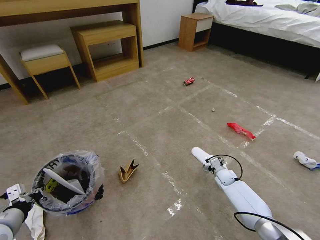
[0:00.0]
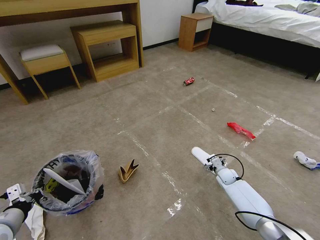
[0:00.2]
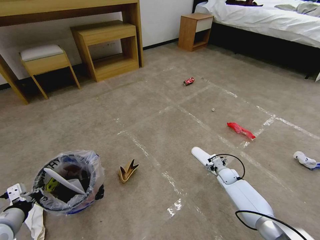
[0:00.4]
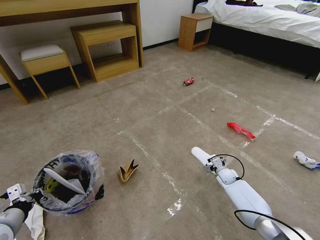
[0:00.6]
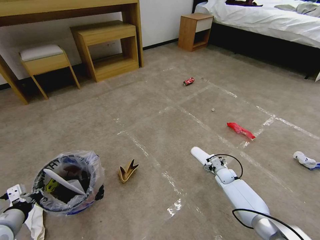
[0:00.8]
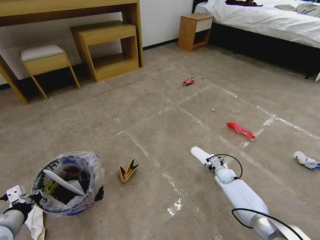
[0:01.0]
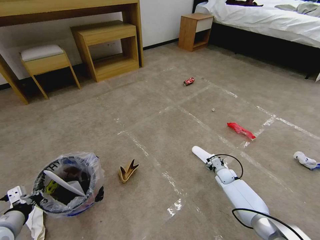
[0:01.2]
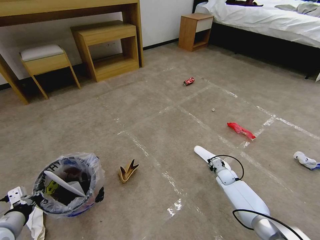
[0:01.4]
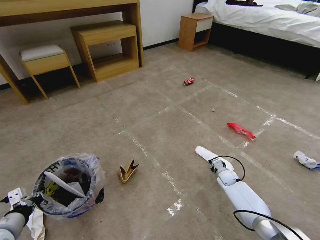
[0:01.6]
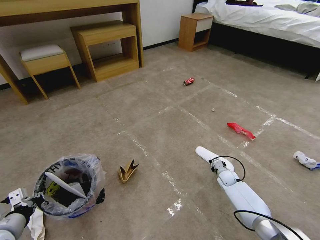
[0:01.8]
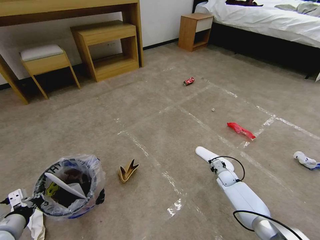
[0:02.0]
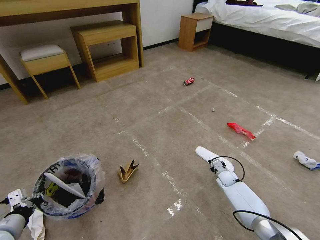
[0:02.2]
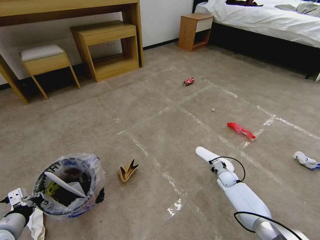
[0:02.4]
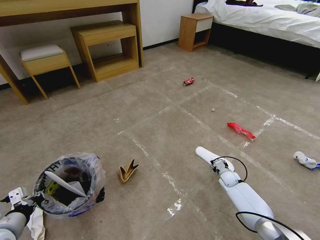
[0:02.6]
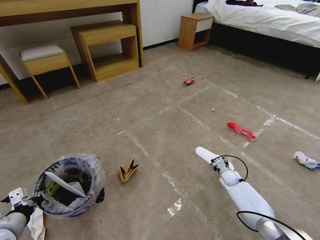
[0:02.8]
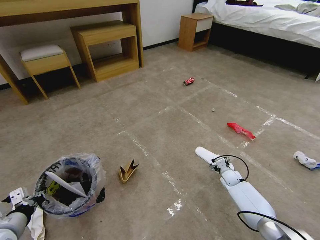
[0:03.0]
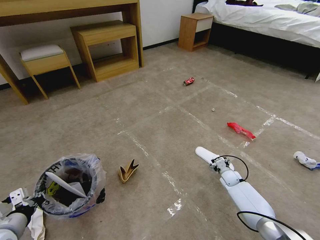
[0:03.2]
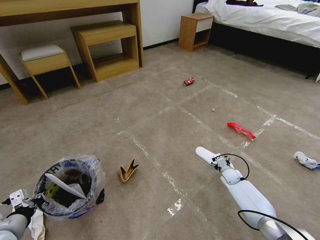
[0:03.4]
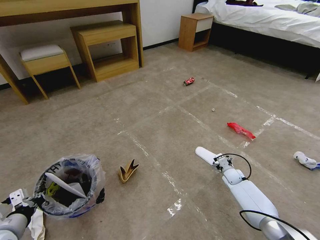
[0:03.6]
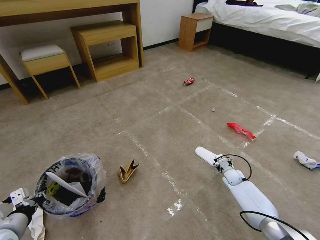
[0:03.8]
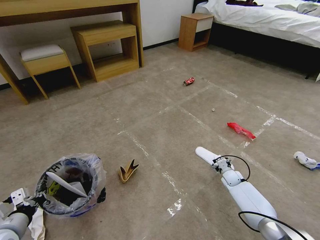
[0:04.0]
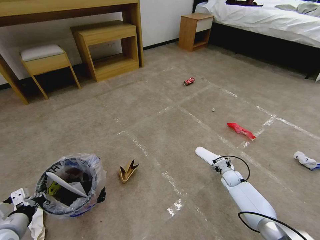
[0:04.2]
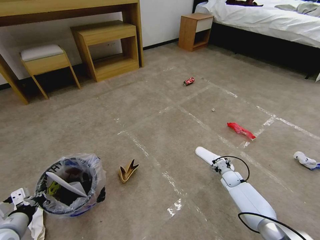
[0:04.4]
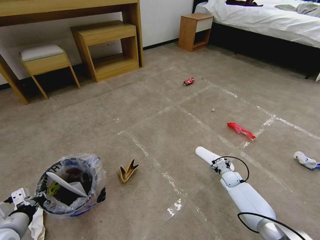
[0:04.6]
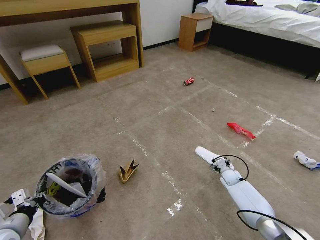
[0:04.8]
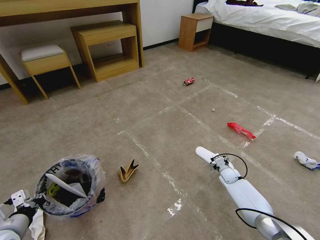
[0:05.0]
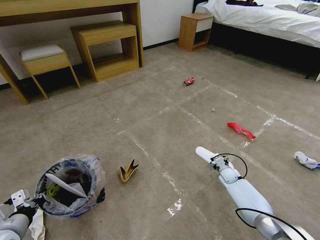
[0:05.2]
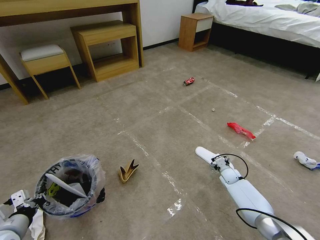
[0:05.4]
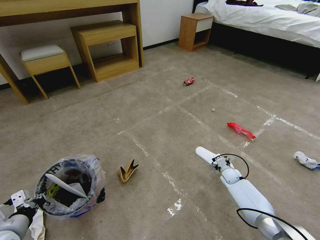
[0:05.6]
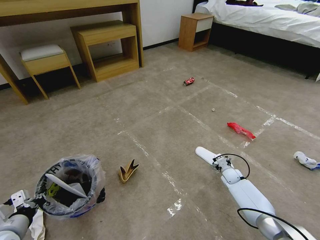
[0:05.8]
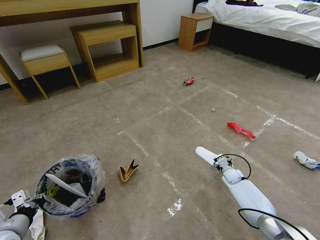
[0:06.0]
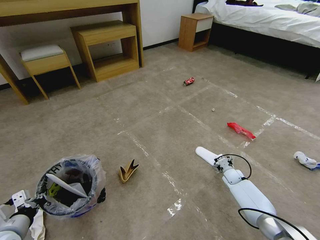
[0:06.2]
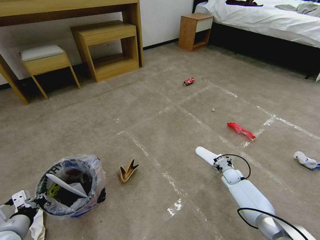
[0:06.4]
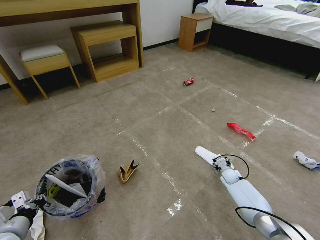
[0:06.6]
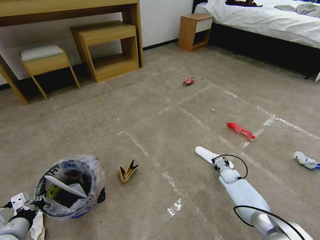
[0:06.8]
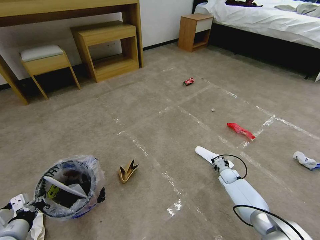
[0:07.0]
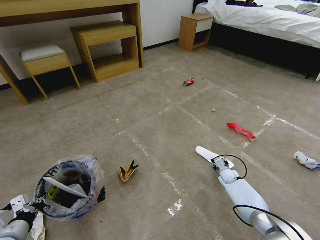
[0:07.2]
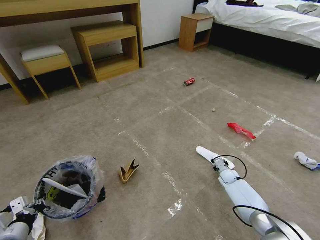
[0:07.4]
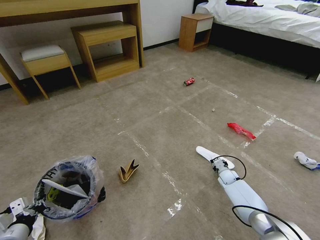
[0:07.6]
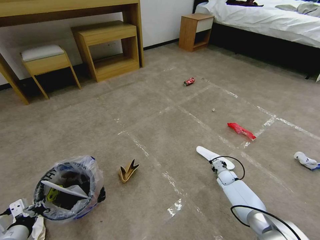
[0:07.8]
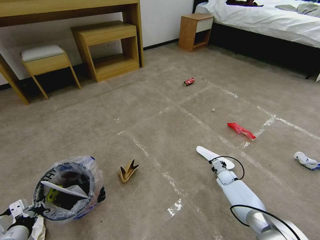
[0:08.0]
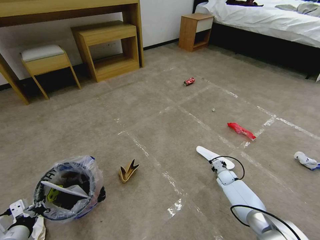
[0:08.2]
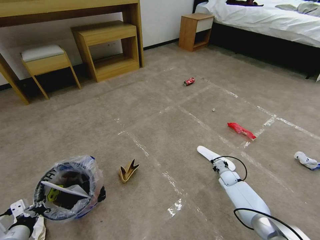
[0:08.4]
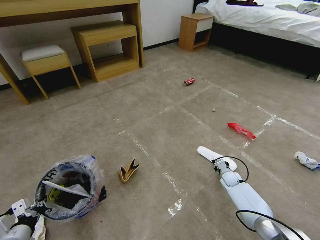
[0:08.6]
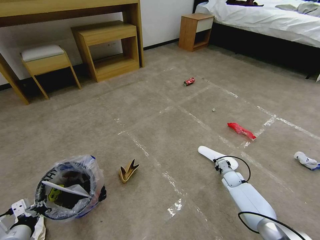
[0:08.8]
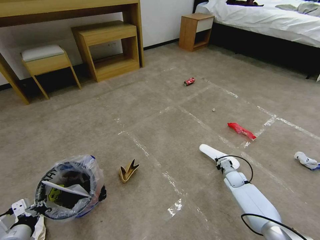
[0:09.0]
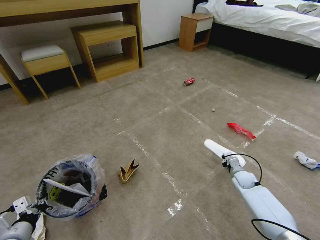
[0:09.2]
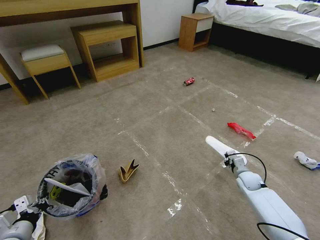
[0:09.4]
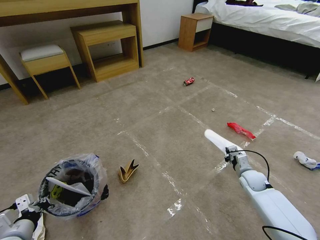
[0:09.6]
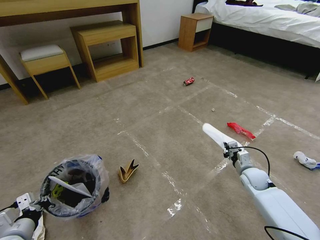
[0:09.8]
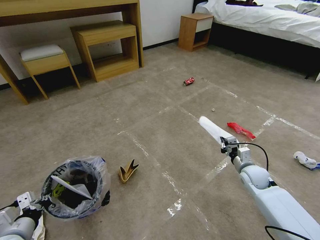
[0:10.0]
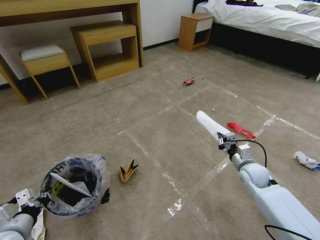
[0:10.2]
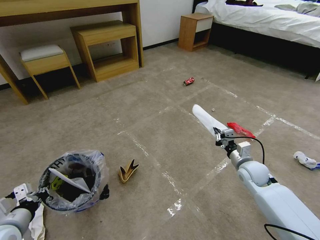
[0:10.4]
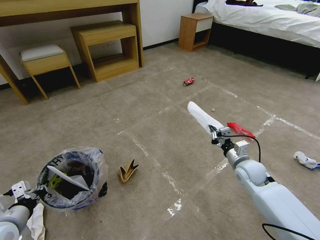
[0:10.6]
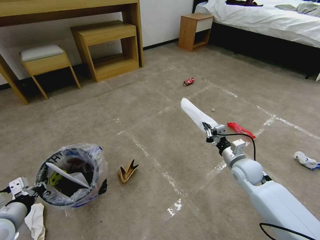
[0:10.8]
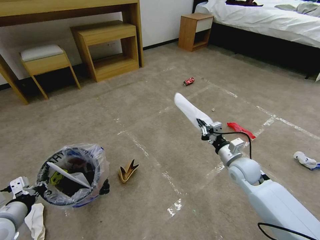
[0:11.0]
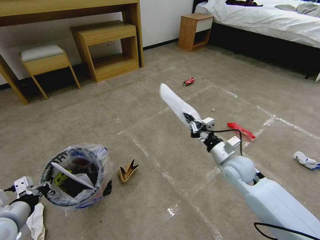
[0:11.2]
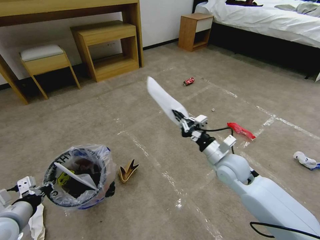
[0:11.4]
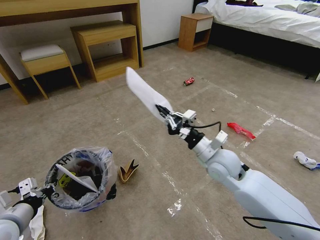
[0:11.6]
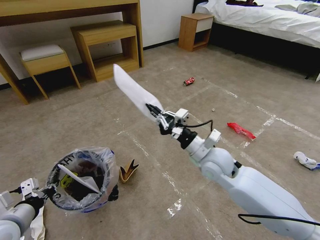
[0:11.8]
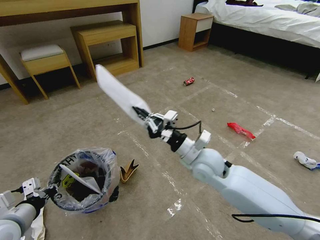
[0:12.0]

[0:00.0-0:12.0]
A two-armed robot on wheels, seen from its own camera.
Task of the whole recording: Pick up the trash bin and place the garbage on the floor into it.
0:00.0 to 0:01.6: The right gripper closes.
0:01.6 to 0:03.0: The right gripper opens.
0:03.0 to 0:04.4: Neither gripper changes place.
0:04.4 to 0:06.0: There are only small adjustments of the grippers.
0:06.0 to 0:07.6: The right gripper closes up.
0:07.6 to 0:09.0: The grippers move only a little.
0:09.0 to 0:10.4: The left gripper travels upward by approximately 5 cm. Meanwhile the right gripper shifts approximately 15 cm upward.
0:10.4 to 0:12.0: The right gripper moves to the left and upward, some 25 cm.

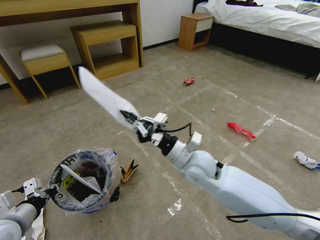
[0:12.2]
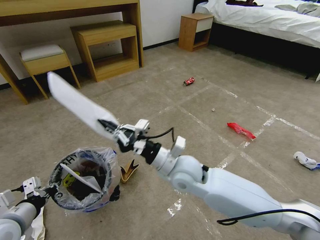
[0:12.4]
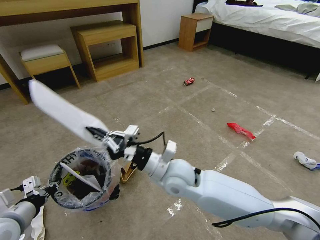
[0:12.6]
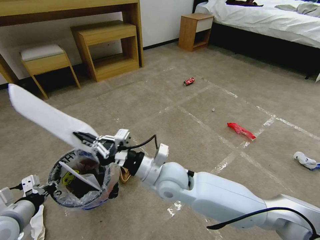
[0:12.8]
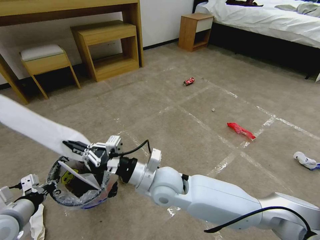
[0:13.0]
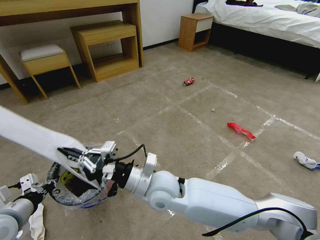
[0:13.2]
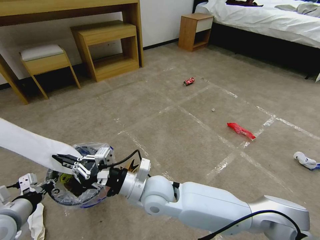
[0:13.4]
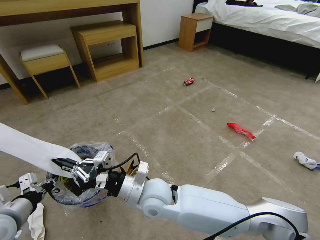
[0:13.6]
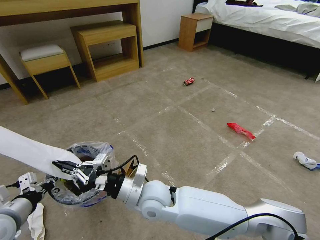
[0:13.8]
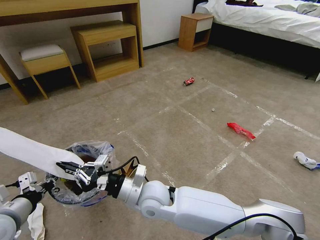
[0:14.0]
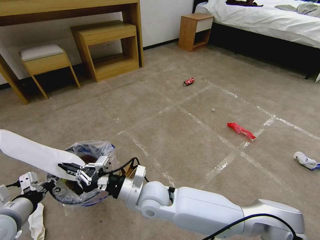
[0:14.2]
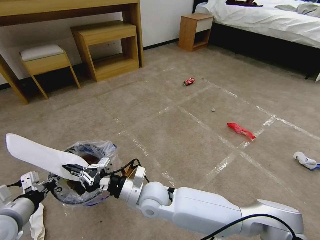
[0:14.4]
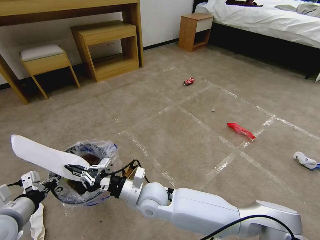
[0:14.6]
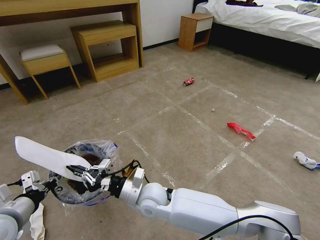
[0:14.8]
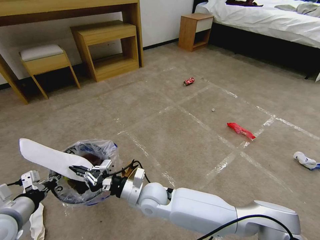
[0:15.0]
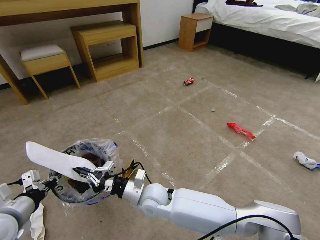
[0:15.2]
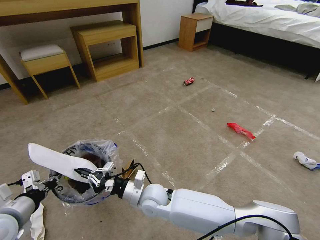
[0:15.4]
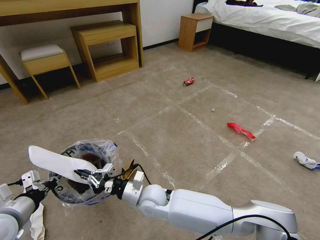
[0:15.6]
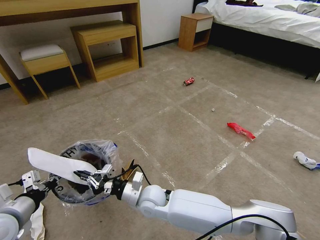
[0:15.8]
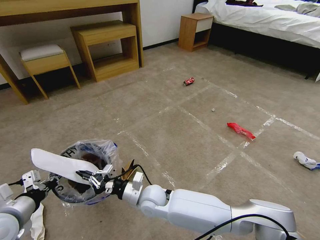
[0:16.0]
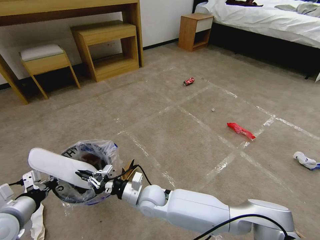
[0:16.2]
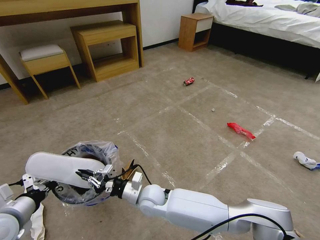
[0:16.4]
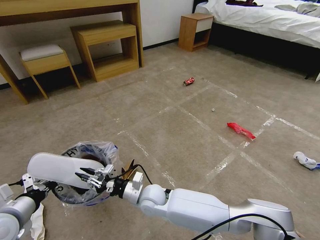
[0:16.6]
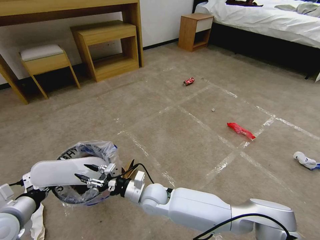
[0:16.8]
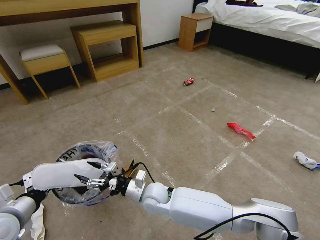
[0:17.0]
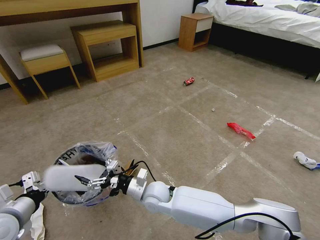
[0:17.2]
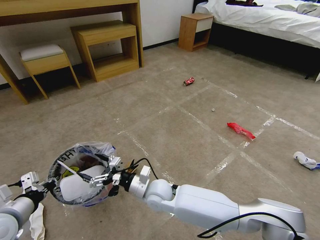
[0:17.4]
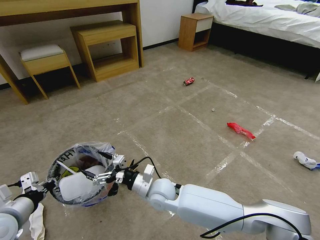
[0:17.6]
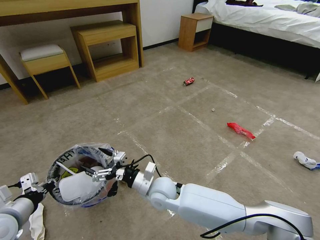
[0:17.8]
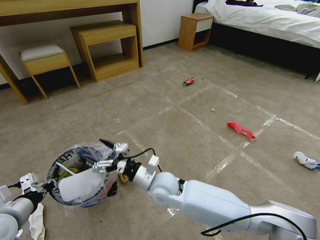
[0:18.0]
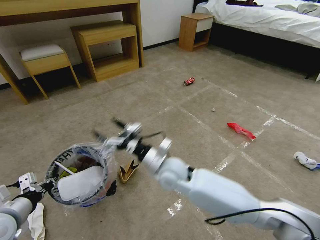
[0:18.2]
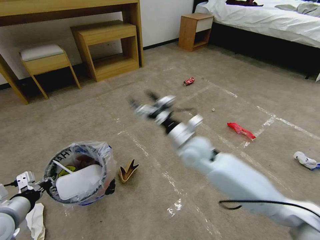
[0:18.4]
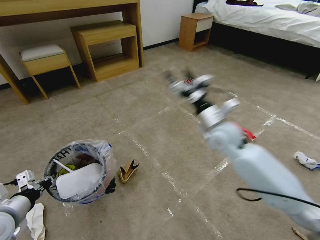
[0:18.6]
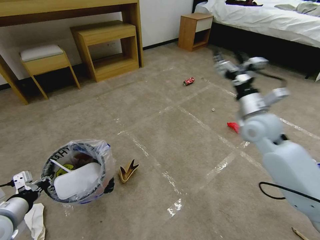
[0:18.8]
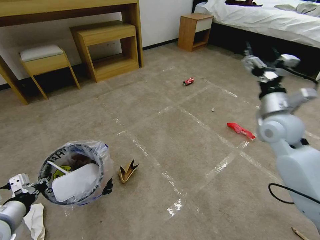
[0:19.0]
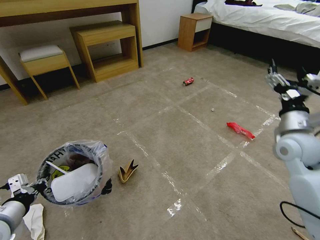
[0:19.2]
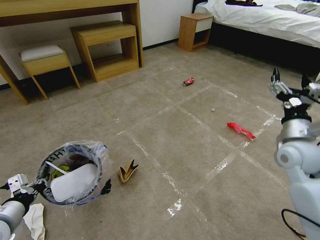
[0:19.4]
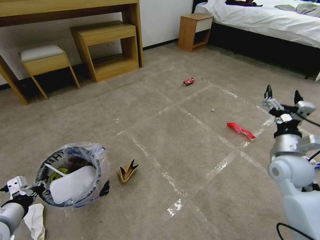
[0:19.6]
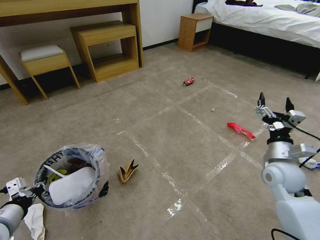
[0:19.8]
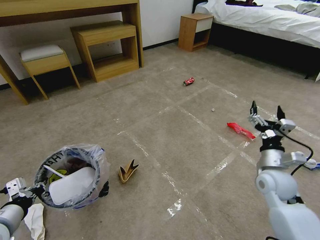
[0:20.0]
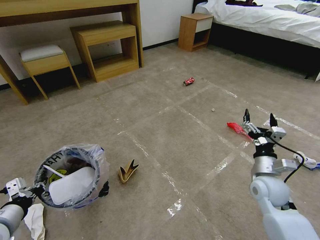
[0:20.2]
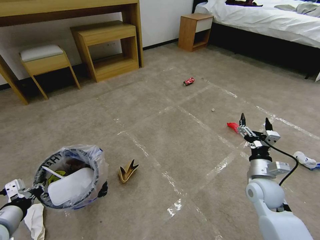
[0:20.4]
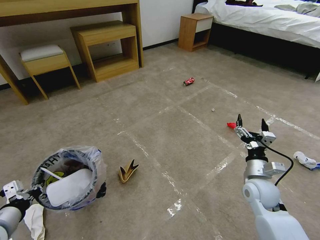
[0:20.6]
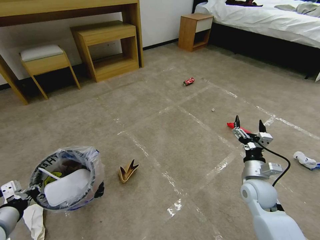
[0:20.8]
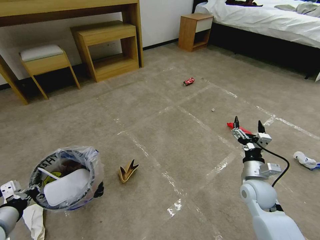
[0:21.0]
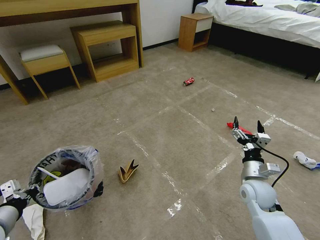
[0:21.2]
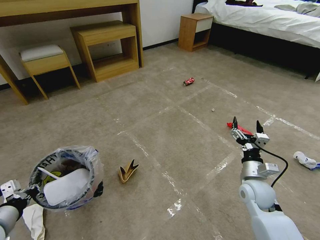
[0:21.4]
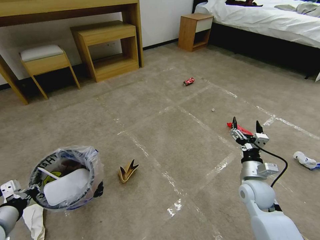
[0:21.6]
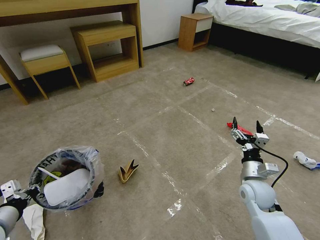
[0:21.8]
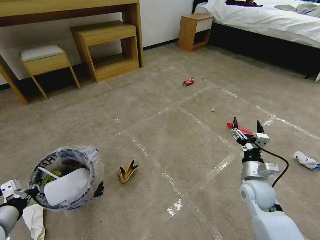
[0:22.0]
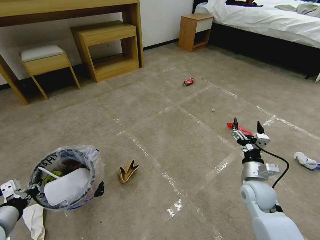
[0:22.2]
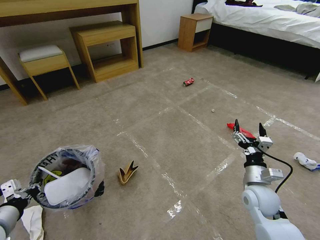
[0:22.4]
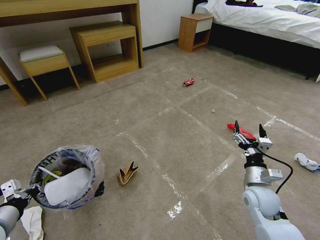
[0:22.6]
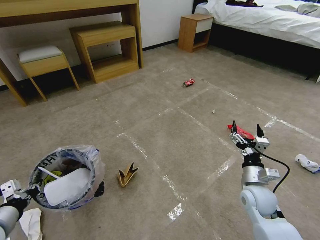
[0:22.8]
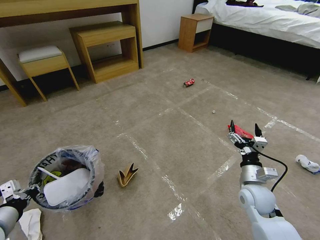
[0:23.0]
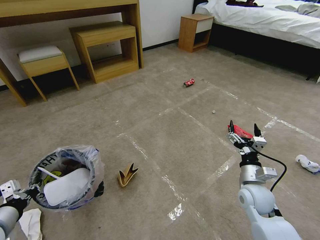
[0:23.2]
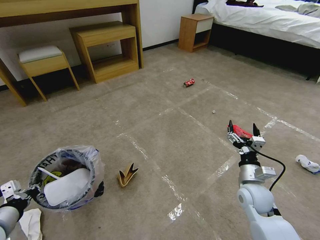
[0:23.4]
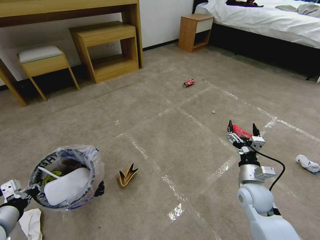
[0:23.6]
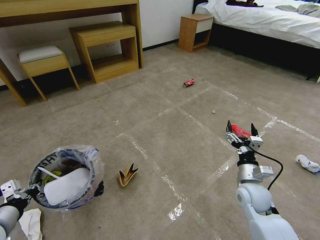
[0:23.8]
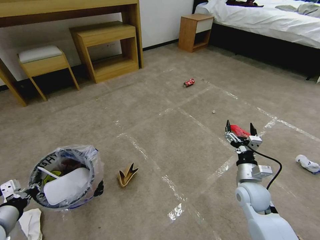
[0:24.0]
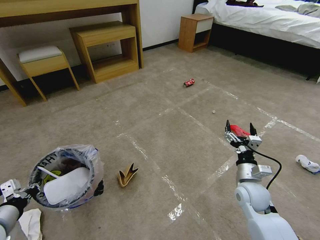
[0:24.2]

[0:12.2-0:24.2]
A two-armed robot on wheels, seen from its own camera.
Task of the whole recording: Pick up the trash bin and place the garbage on the floor into it.
0:12.2 to 0:13.8: The right gripper goes about 15 cm to the left, backward and downward.
0:13.8 to 0:15.2: The right gripper moves downward, roughly 5 cm.
0:15.2 to 0:16.6: There are only small adjustments of the grippers.
0:16.6 to 0:18.2: The right gripper travels upward and to the right by approximately 15 cm, and opens up.
0:18.2 to 0:19.8: The right gripper goes roughly 35 cm to the right.
0:19.8 to 0:21.2: The right gripper heads downward and to the left, covering approximately 10 cm.
0:21.2 to 0:24.2: The grippers make only small movements.
